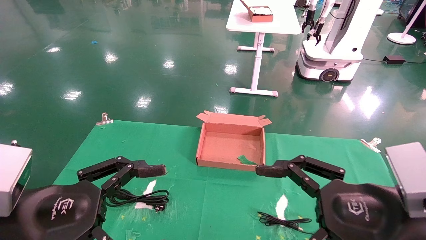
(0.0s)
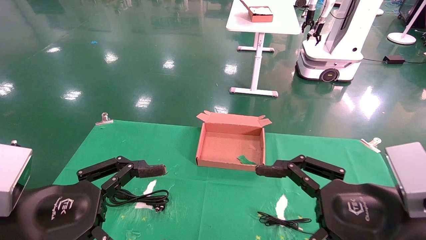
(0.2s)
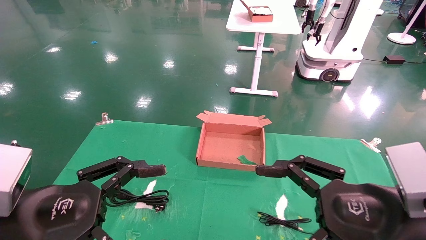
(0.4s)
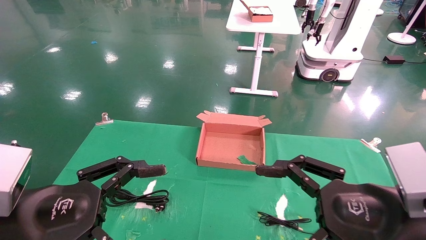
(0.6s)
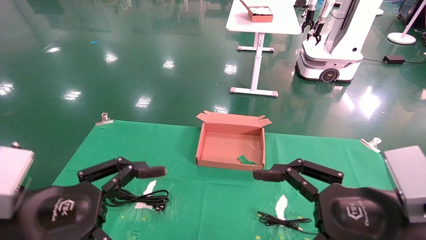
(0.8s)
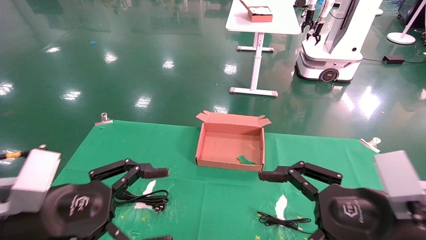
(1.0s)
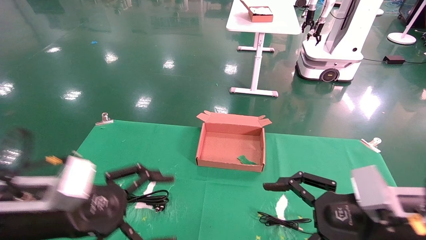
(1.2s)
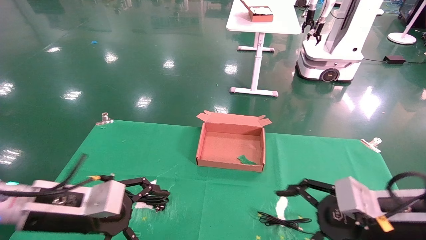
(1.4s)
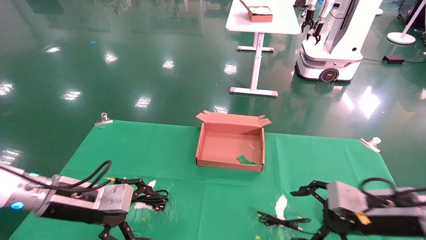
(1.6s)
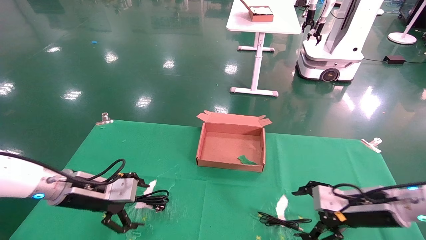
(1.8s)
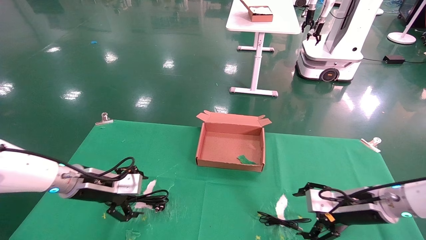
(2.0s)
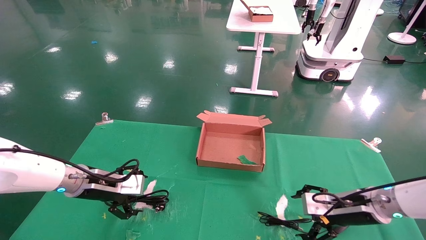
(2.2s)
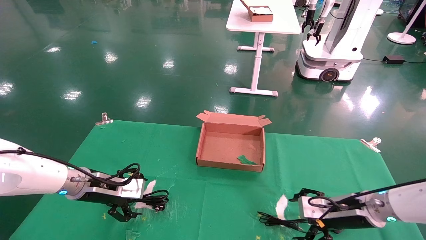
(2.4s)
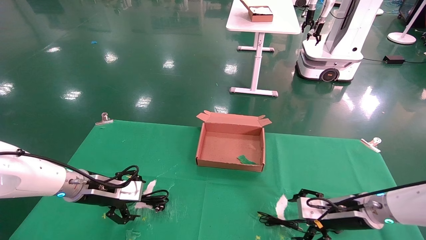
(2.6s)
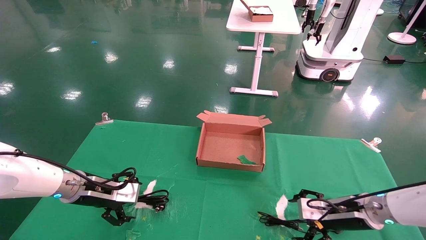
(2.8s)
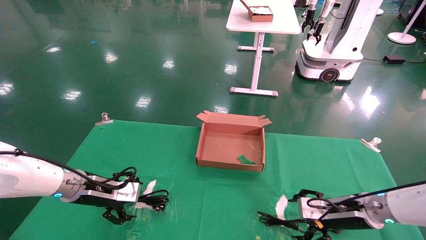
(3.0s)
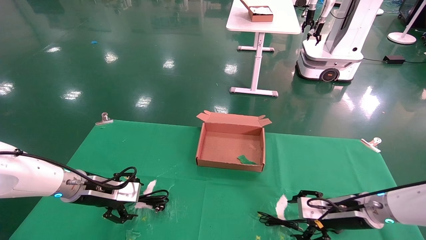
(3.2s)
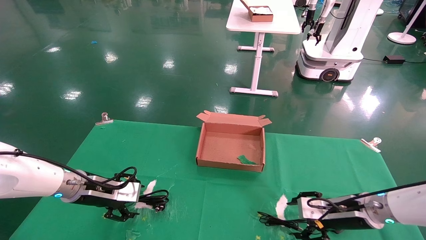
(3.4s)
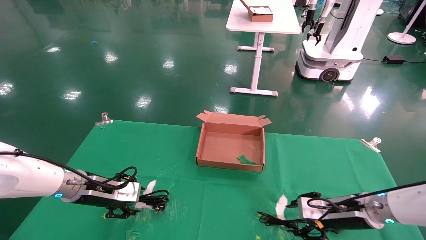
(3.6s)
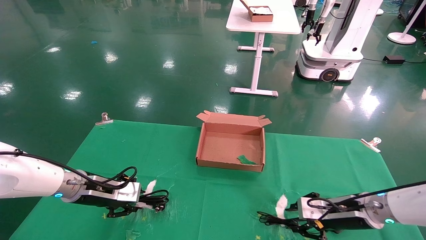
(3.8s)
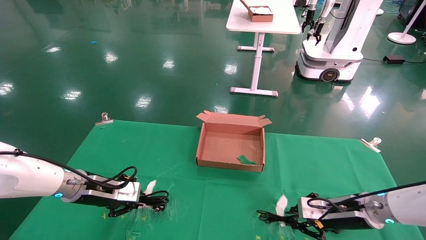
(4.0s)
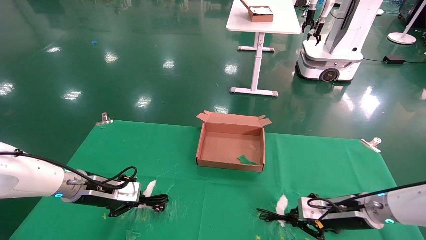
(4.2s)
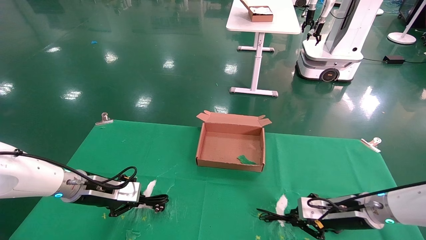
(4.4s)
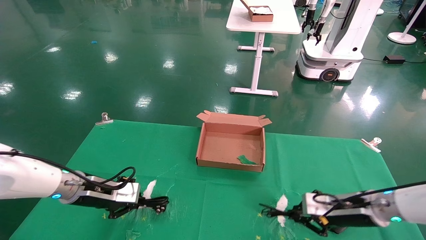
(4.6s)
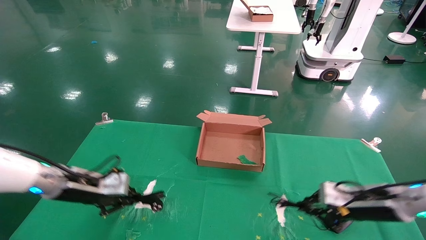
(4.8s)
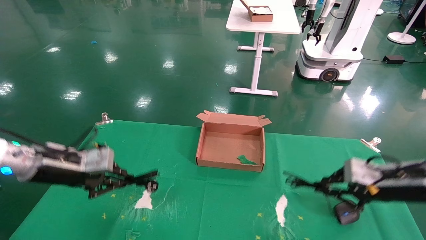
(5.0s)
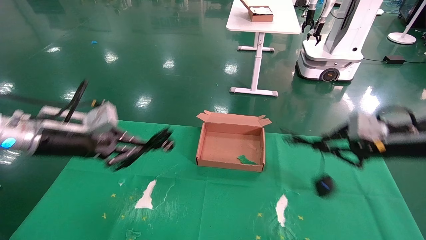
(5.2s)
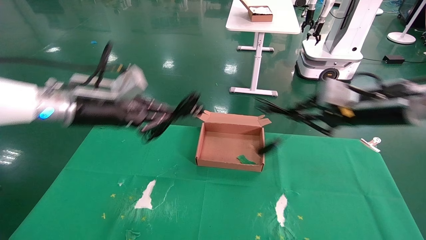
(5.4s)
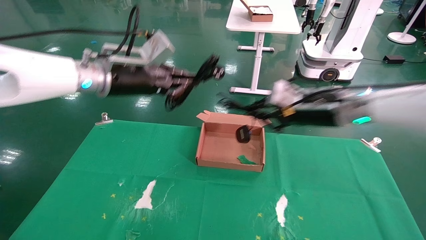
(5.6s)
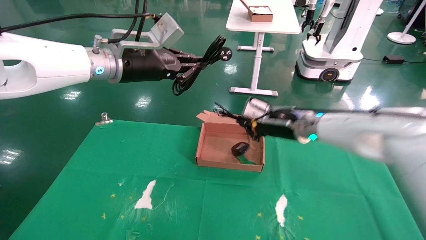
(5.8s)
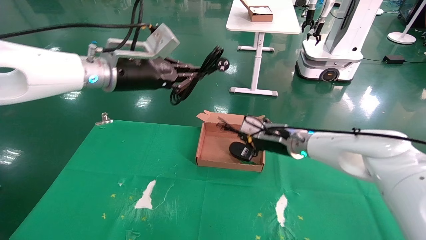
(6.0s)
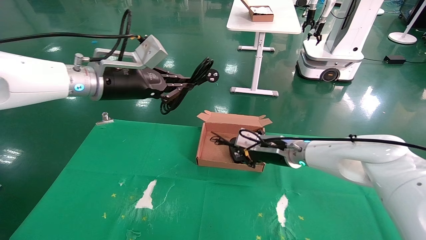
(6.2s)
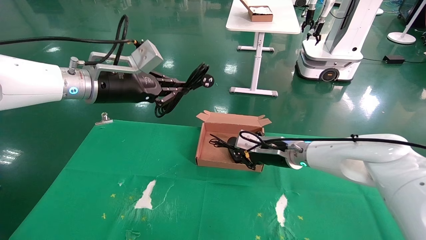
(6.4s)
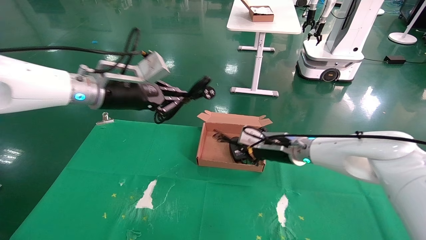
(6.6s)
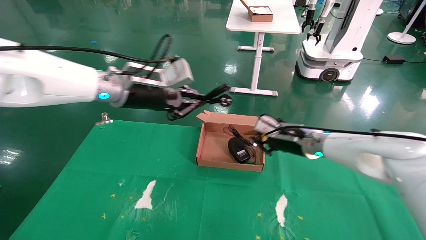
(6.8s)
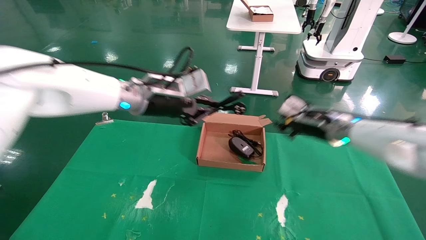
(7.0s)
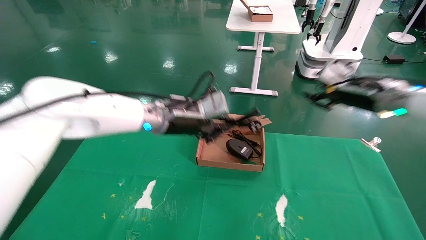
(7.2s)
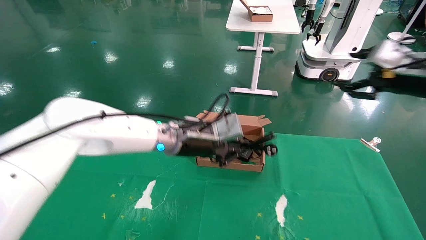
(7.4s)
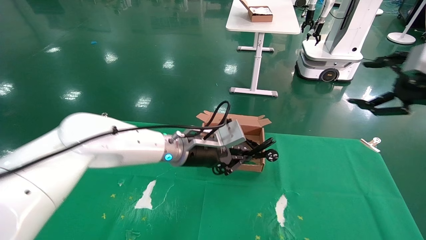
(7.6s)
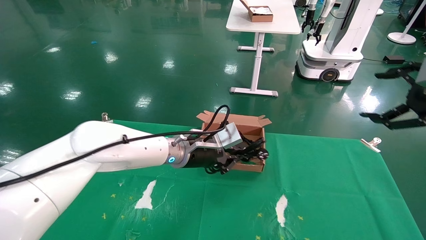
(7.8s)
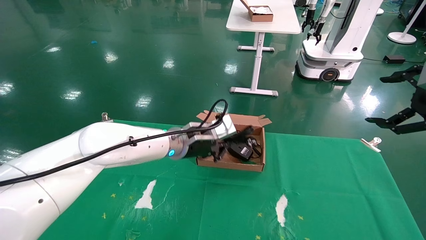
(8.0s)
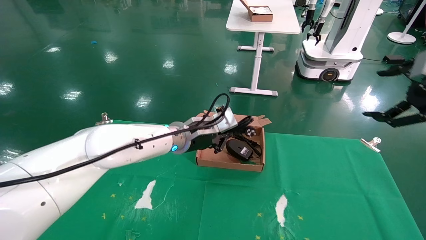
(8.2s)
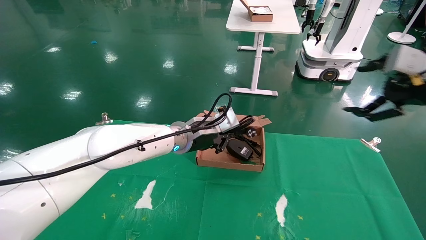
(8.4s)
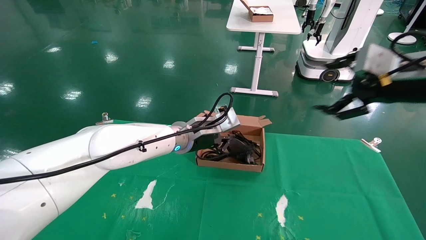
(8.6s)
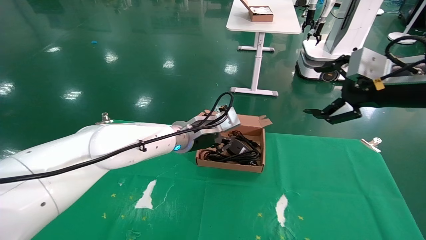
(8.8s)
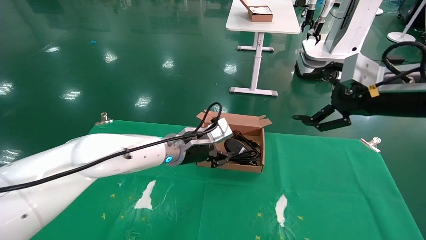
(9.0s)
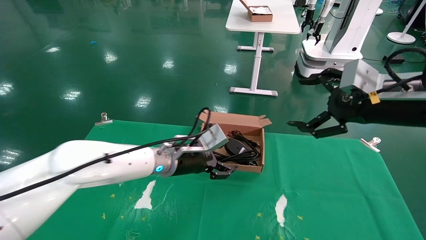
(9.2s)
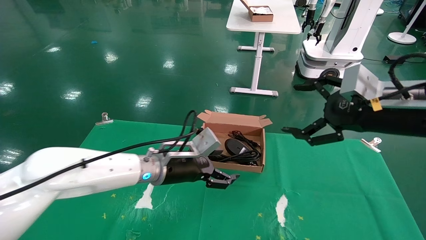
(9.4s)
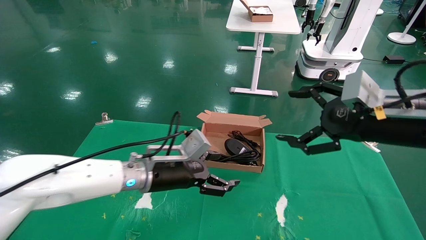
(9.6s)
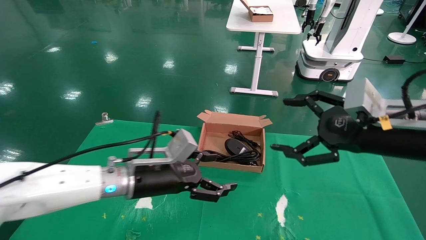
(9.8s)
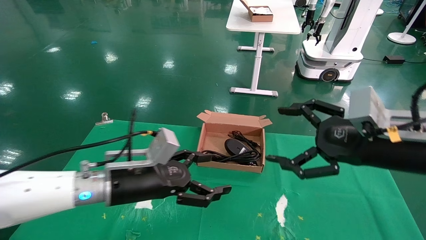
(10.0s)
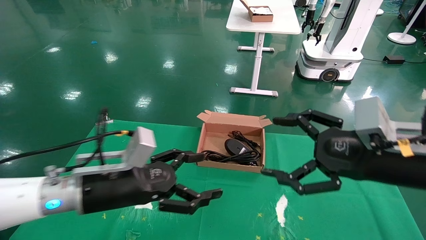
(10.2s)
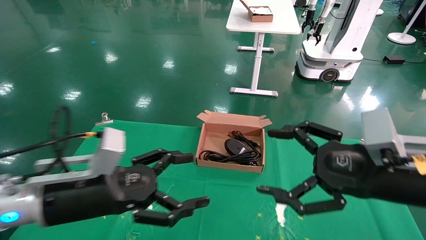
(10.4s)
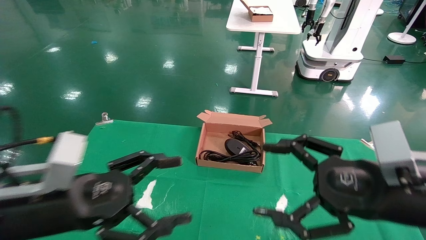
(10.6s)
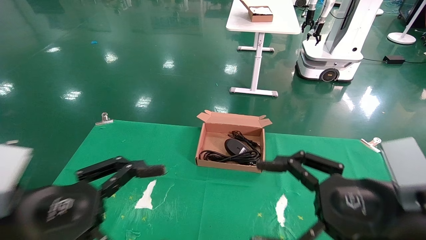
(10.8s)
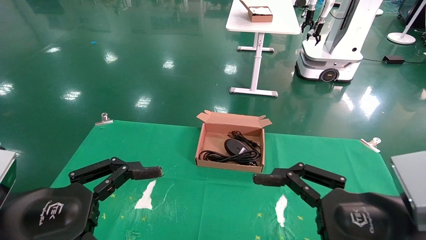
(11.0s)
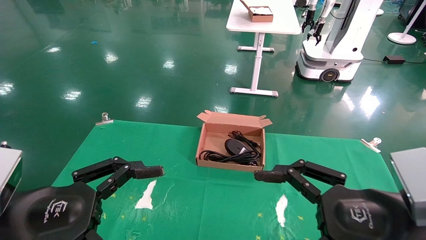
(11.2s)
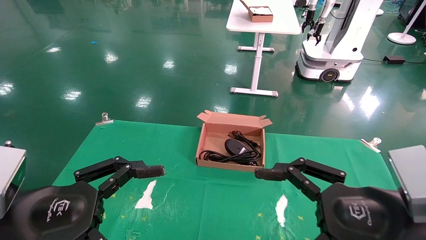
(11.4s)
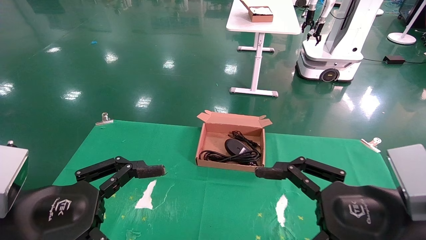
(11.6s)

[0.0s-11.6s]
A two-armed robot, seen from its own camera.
Step, 1.0s to 4.2s: Grab and lift both the mouse and power cord from the accessory packaging area at the same time.
Step, 4.4s to 9.4s: Place the mouse and power cord into the box.
0.0s to 1.4s: The left gripper is displaced forward by about 10 cm. Meanwhile the right gripper moves forward and downward, about 10 cm.
1.4s to 2.8s: The left gripper goes about 15 cm forward. The right gripper heads forward and downward, covering roughly 15 cm.
2.8s to 4.4s: The right gripper closes, while the left gripper closes its fingers.
4.4s to 5.8s: The right gripper moves upward, to the left and forward, approximately 20 cm; the left gripper heads upward and to the right, covering roughly 30 cm.
5.8s to 7.2s: The left gripper shifts roughly 15 cm downward and to the right, while the right gripper travels to the right and upward by roughly 15 cm, and opens its fingers.
7.2s to 8.8s: The left gripper shifts approximately 5 cm downward. The right gripper moves backward, approximately 10 cm, and opens up.
8.8s to 10.2s: The left gripper travels backward and to the left by roughly 20 cm, and opens; the right gripper travels downward, backward and to the left by approximately 15 cm.
10.2s to 11.6s: The left gripper moves backward and to the left, roughly 15 cm. The right gripper shifts approximately 5 cm backward.

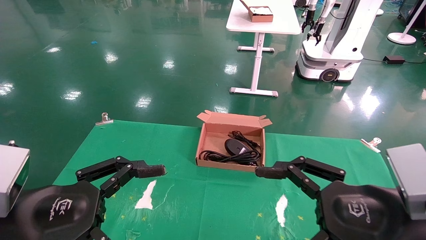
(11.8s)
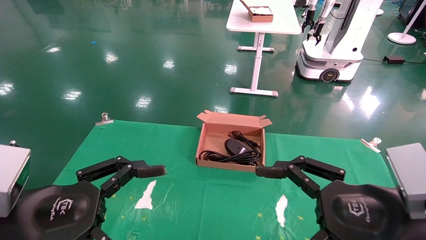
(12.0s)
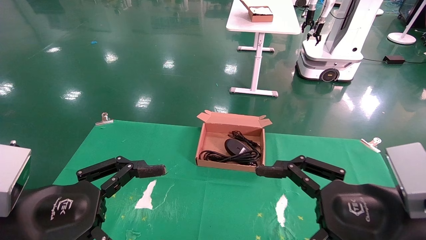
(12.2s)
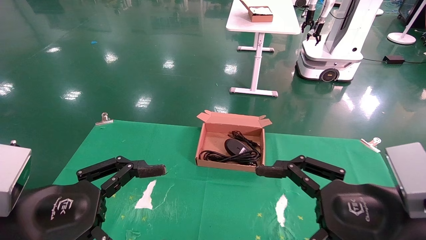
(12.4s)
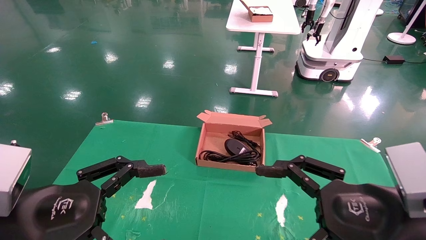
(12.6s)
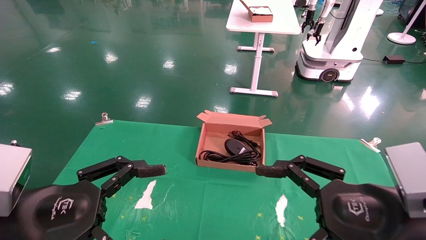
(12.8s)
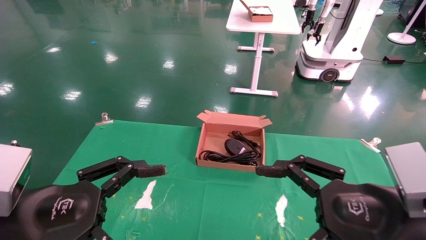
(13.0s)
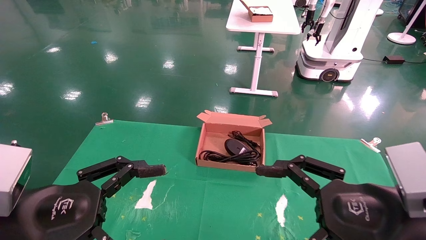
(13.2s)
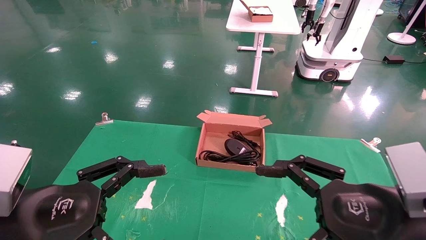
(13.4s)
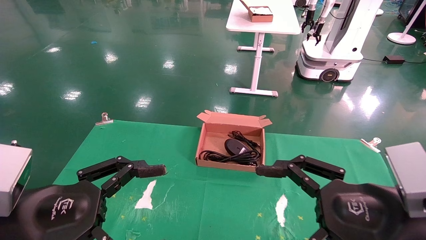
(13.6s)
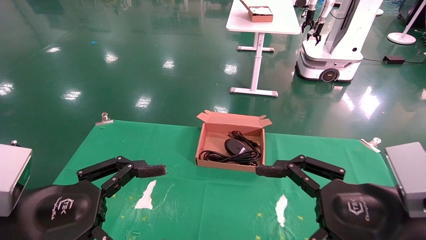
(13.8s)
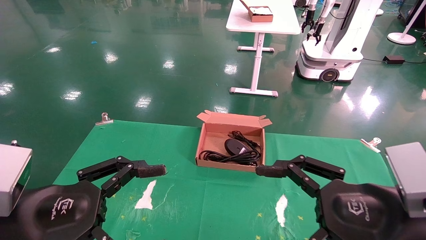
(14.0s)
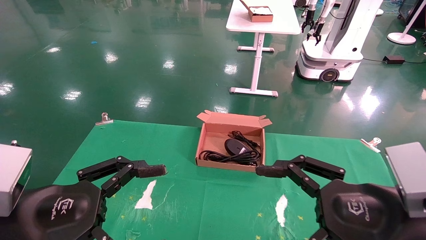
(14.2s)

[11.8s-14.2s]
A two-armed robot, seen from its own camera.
11.8s to 14.2s: Both grippers stay put.

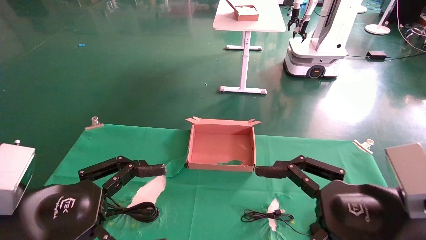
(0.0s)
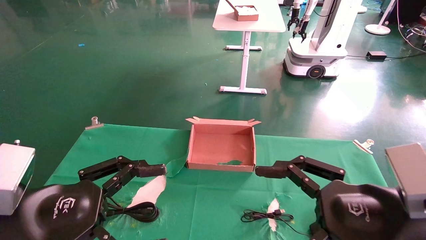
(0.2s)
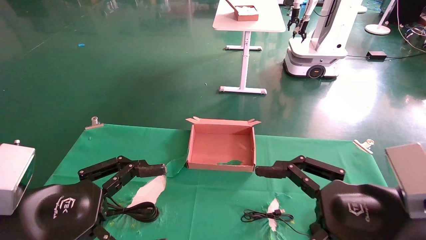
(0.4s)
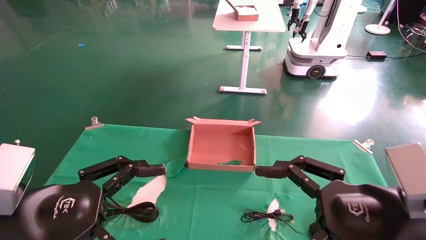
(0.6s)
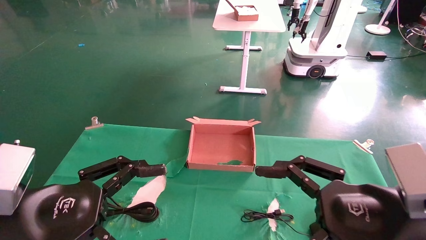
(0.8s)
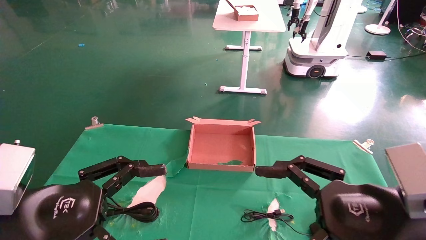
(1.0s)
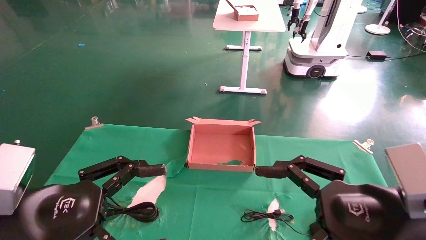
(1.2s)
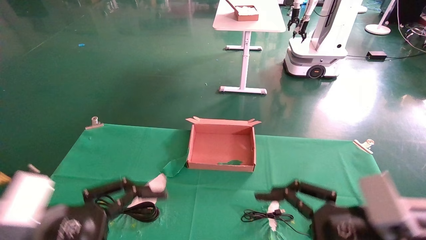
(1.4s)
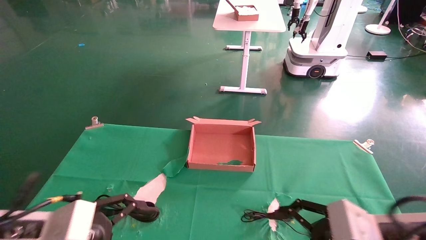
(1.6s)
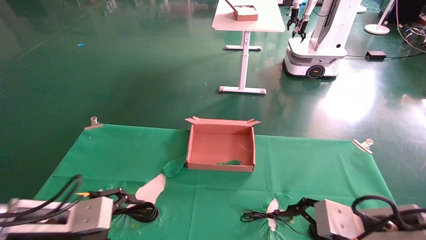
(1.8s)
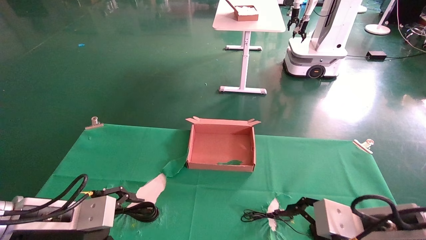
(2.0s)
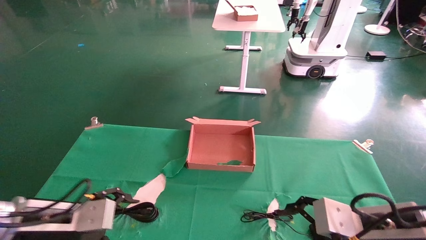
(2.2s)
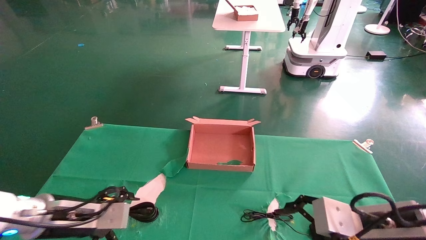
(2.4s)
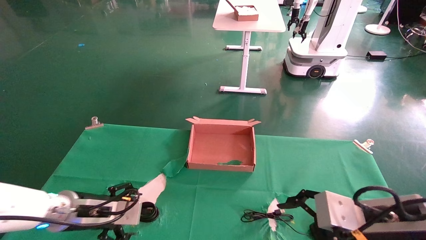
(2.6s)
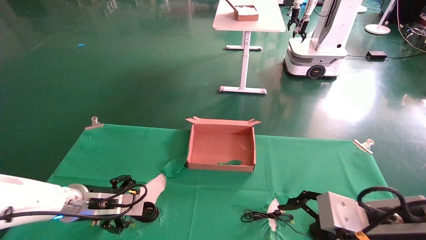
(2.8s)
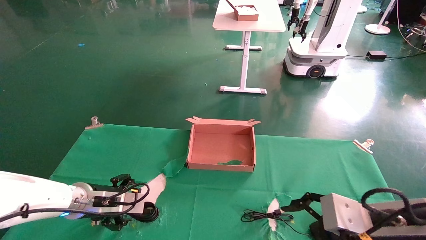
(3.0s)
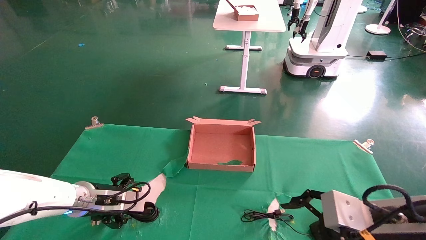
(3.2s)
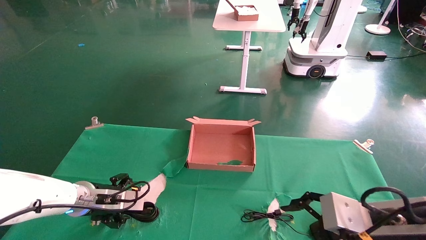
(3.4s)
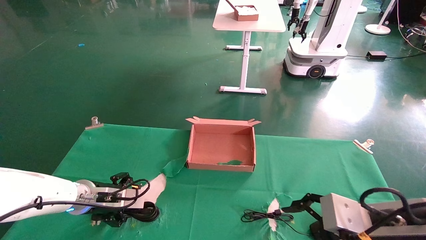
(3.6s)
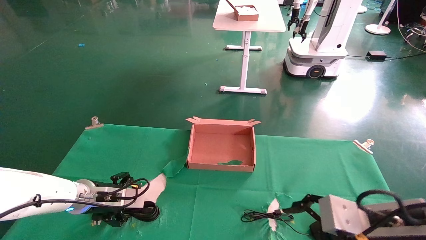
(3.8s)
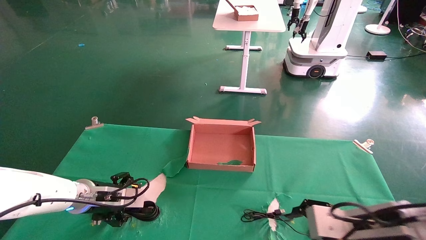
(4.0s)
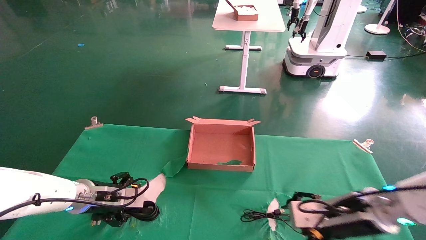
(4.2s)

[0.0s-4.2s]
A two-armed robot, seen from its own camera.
0.0s to 1.4s: The grippers make only small movements.
1.4s to 2.8s: The left gripper travels forward and downward by roughly 20 cm.
2.8s to 4.2s: The right gripper goes some 10 cm forward.
